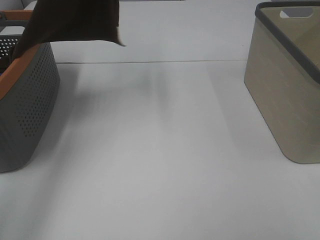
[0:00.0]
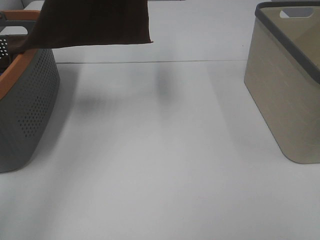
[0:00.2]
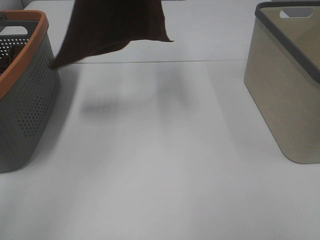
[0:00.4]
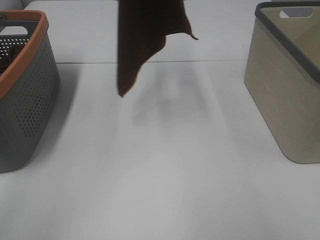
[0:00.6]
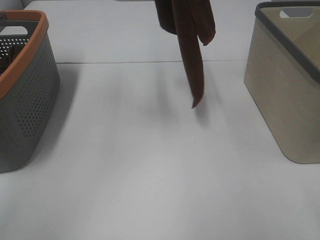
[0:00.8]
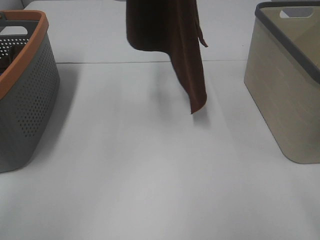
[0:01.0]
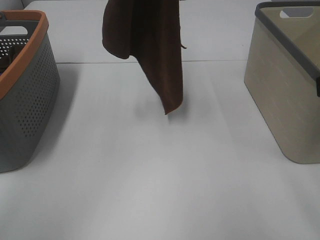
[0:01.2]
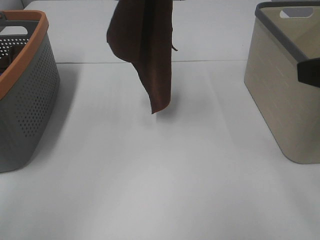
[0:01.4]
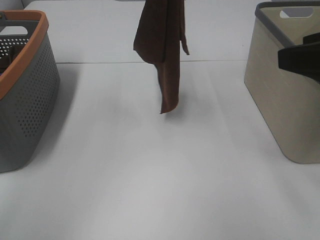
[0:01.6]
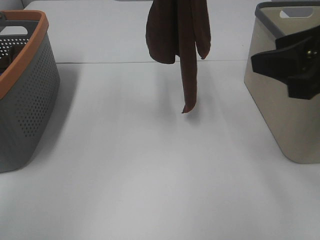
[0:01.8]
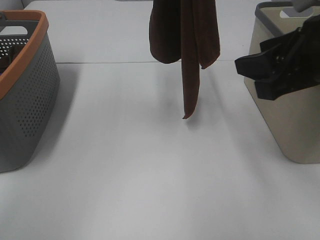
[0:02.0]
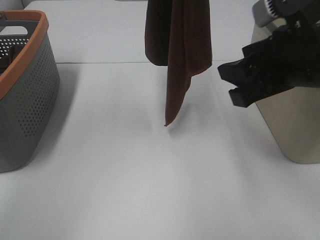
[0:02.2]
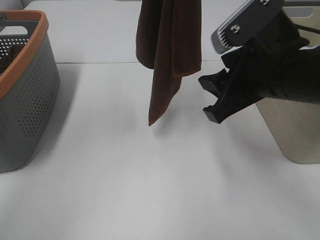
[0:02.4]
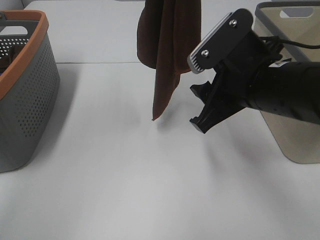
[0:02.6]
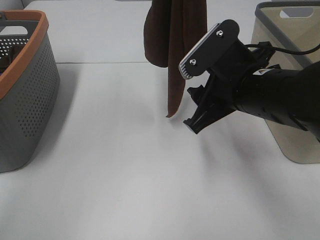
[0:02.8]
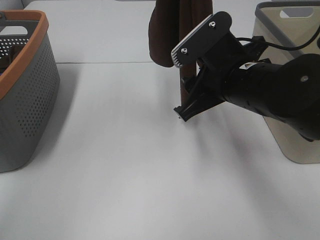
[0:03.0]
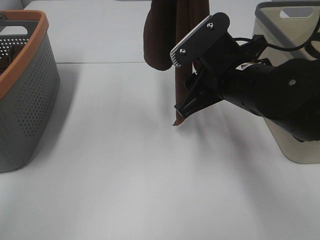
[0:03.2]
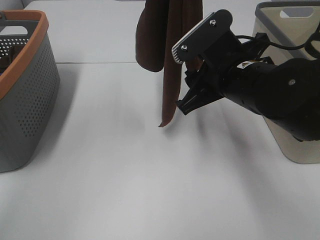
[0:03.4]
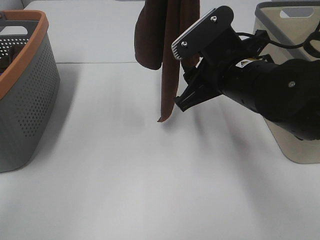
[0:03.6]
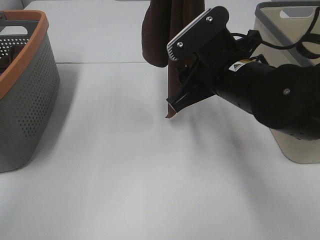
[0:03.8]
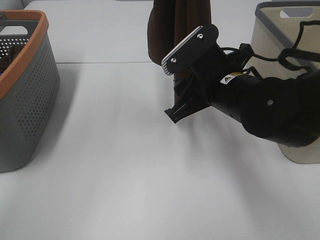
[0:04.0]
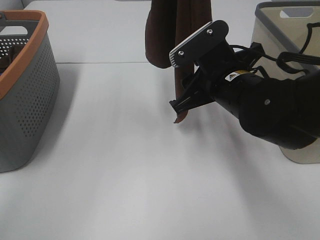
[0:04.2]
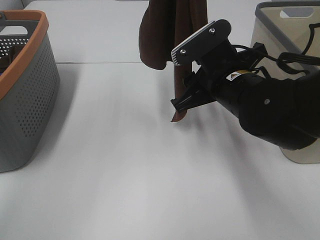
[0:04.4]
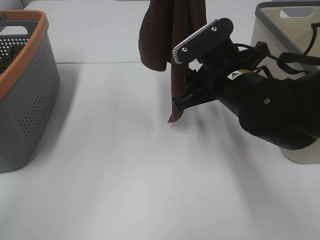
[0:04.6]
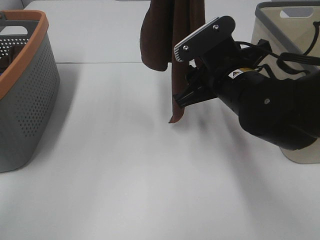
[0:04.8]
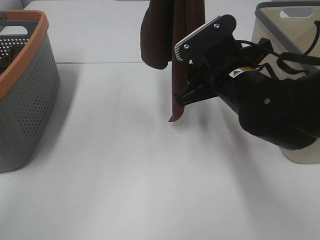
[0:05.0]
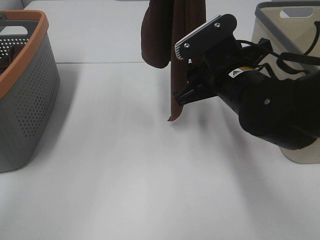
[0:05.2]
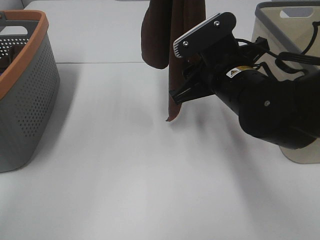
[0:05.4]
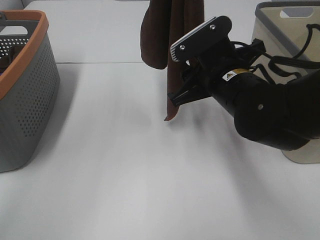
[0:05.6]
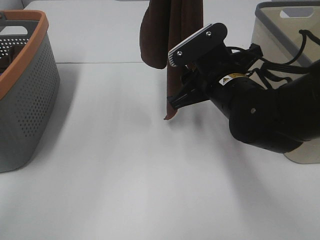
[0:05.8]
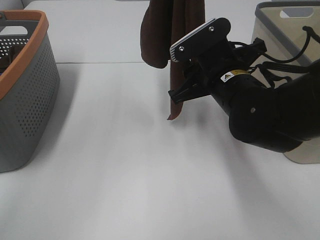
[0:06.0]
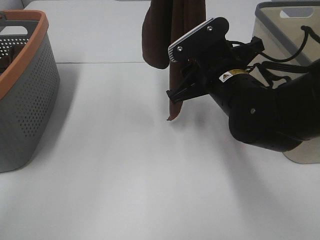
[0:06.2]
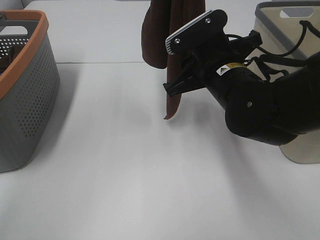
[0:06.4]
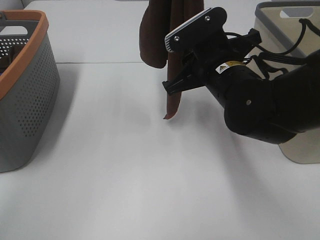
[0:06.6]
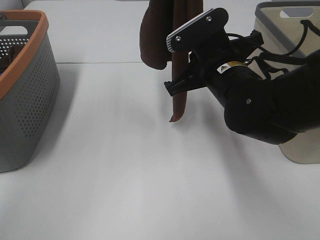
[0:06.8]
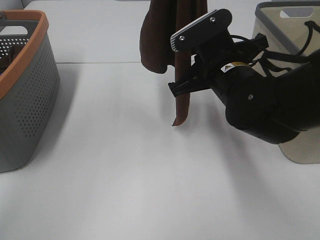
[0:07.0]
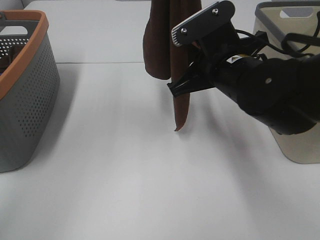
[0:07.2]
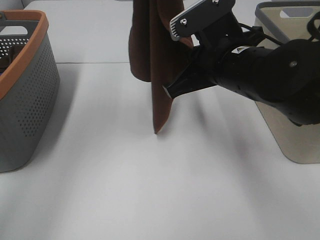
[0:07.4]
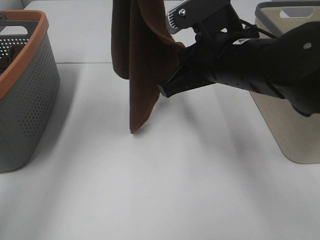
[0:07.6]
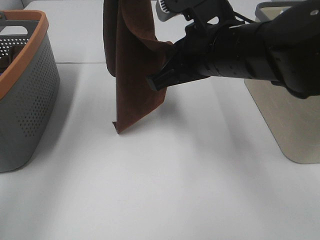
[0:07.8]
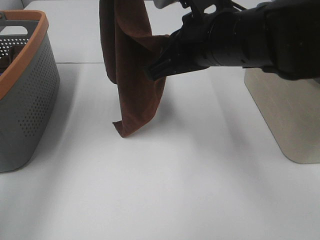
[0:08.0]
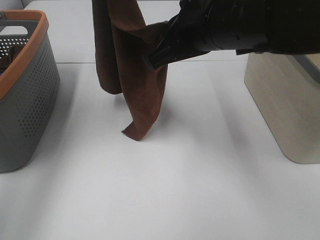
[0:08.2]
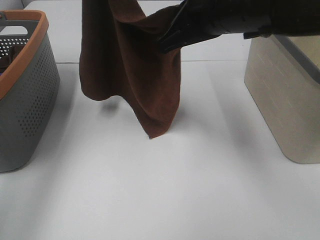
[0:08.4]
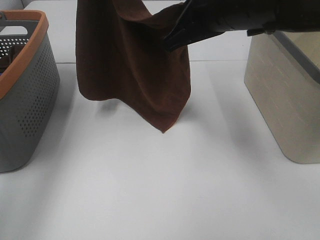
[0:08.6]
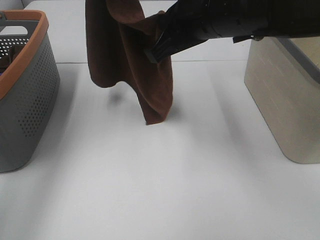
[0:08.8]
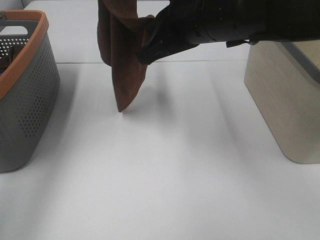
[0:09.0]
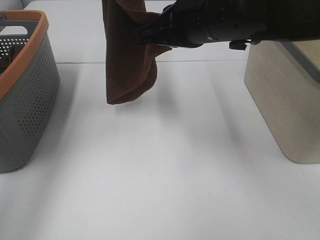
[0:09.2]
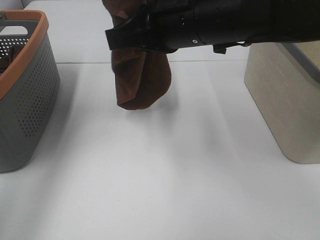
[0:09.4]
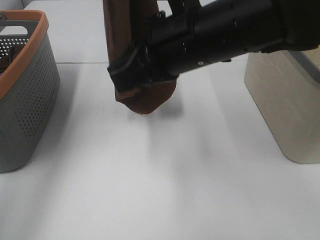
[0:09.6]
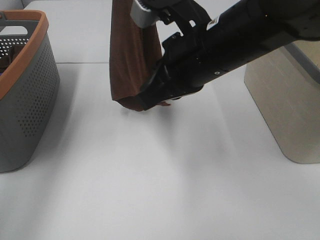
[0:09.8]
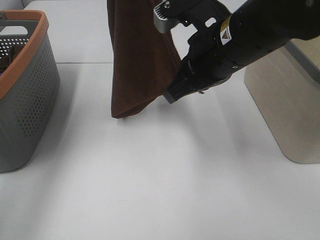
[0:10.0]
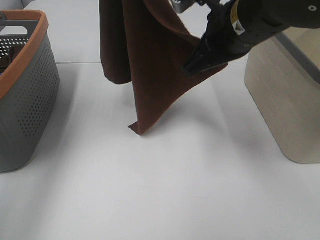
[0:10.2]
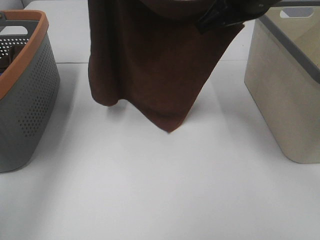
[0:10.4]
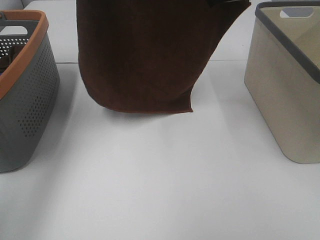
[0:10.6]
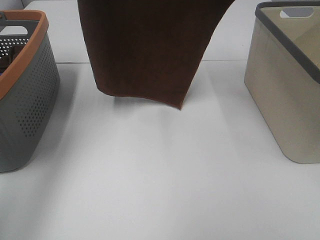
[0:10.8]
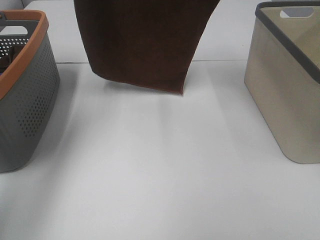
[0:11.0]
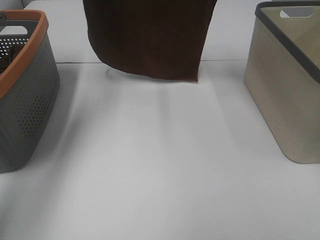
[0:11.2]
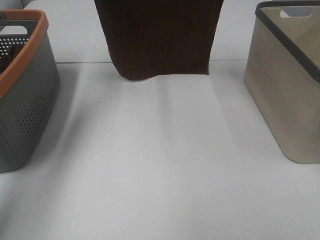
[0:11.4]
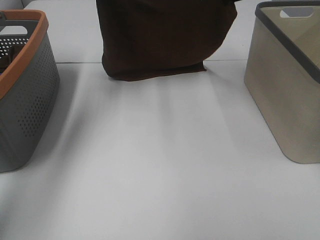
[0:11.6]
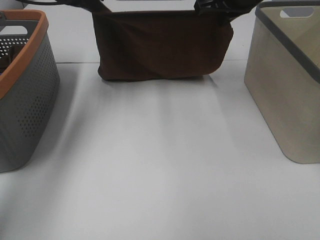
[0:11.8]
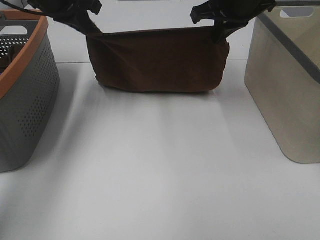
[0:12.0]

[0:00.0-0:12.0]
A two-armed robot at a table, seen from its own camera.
Task of the whole recording: Remove the towel and place it.
Step, 0:00.0 to 0:06.2: Right hand: grab a corner of the brown towel and straighten it.
Step, 0:06.4 to 0:08.4: Left hand: spread the brown towel flat on the table.
Step, 0:06.4 to 0:08.4: Right hand: spread the brown towel flat on the table.
0:00.0 to 0:01.6: The left gripper travels to the right by approximately 10 cm. The right gripper is displaced forward by some 15 cm.
0:01.6 to 0:03.0: The right gripper goes roughly 20 cm to the left, downward and forward.
0:03.0 to 0:06.0: There are only small adjustments of the grippers.
0:06.0 to 0:07.6: The right gripper goes about 5 cm upward, and closes its fingers. The left gripper shifts approximately 5 cm to the left.
0:07.6 to 0:09.0: The right gripper shifts by some 5 cm.
0:09.0 to 0:10.4: The right gripper is displaced to the right by approximately 5 cm.
0:10.4 to 0:12.0: The right gripper is displaced forward by approximately 10 cm. The left gripper goes about 10 cm downward.

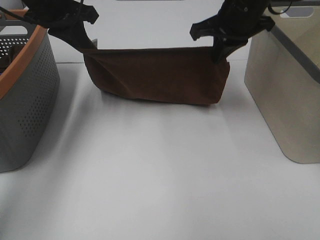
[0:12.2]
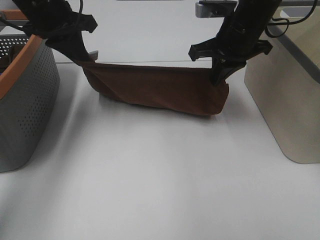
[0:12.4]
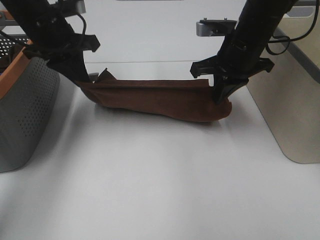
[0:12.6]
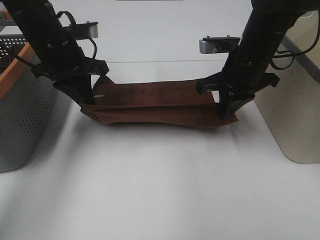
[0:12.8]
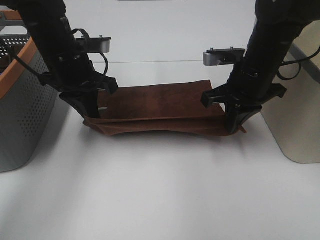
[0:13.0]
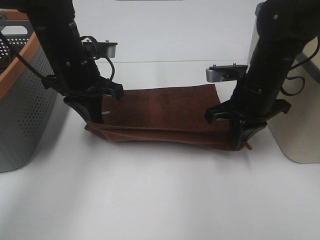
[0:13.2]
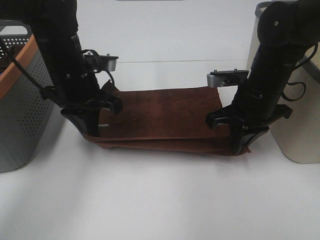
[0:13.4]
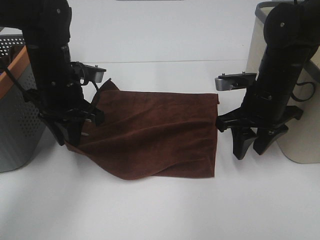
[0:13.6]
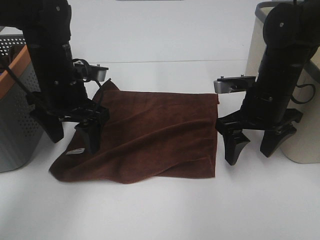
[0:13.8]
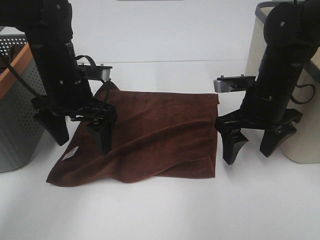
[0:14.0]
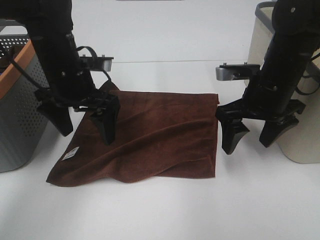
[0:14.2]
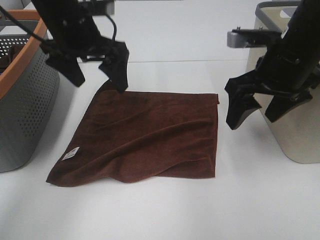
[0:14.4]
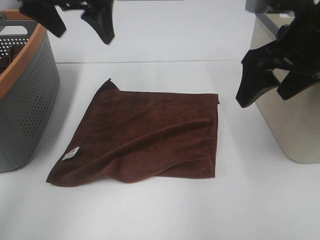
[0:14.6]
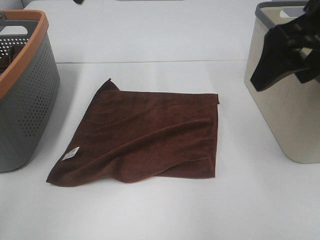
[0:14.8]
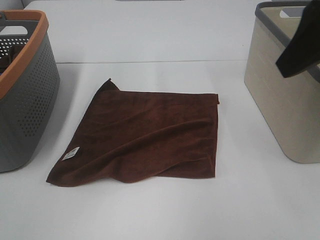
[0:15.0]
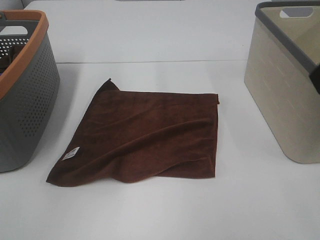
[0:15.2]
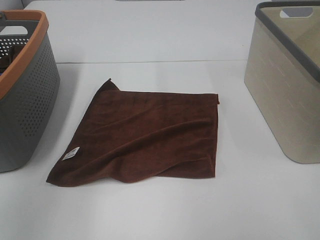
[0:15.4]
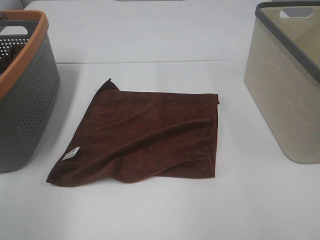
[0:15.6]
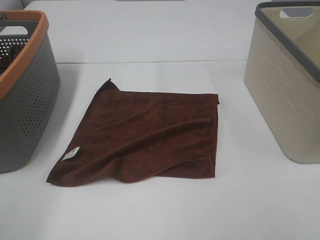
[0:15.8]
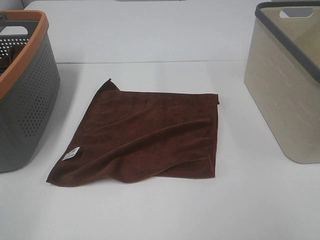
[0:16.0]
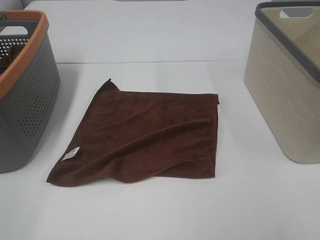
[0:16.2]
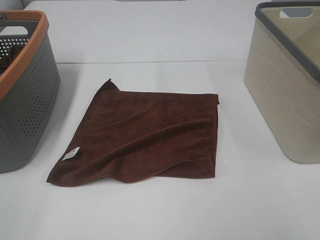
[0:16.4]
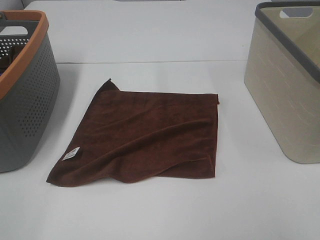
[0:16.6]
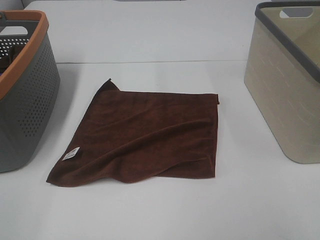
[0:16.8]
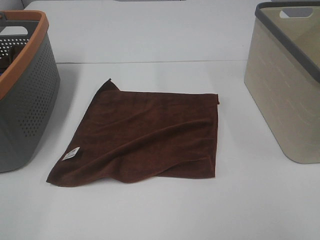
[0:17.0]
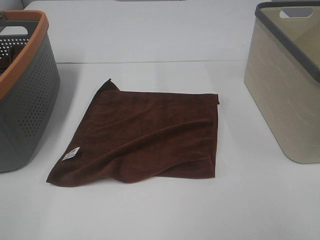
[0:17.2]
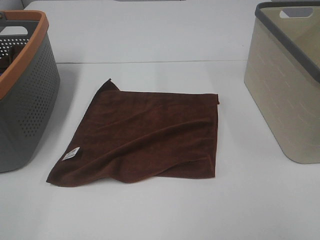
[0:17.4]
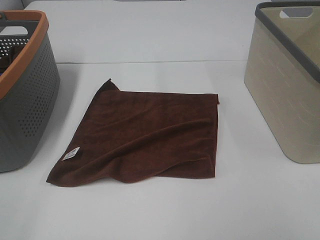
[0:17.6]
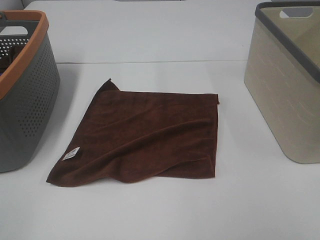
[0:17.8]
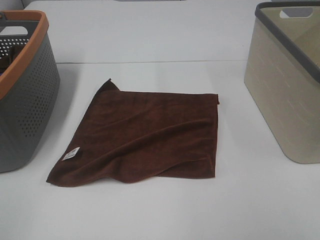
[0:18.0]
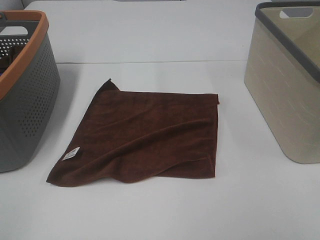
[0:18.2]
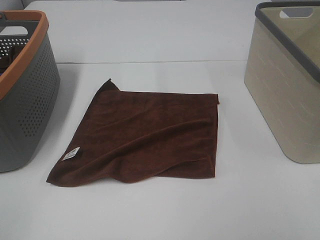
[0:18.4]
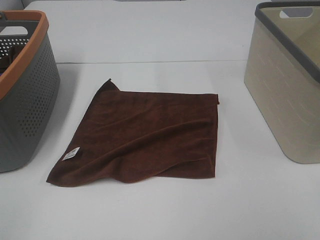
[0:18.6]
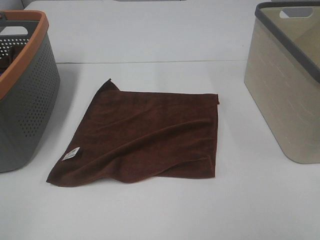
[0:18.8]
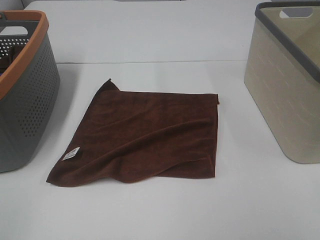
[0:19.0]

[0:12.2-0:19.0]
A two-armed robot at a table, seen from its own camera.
Task of the whole recording: Remove the towel and place it.
0:12.2 to 0:13.6: The two grippers go some 15 cm downward and backward. The right gripper opens up.
0:13.6 to 0:15.0: The right gripper moves upward and backward, some 25 cm, and opens its fingers. The left gripper goes some 30 cm upward, and opens its fingers.
0:15.0 to 0:16.2: The left gripper travels backward, downward and to the left by roughly 35 cm. The right gripper goes some 20 cm backward and downward.

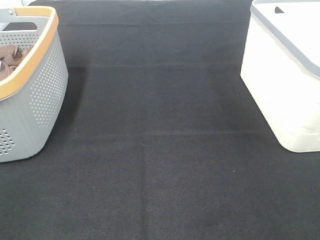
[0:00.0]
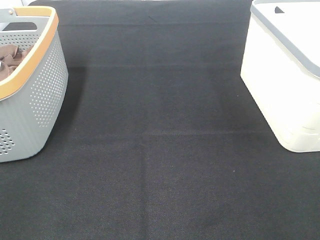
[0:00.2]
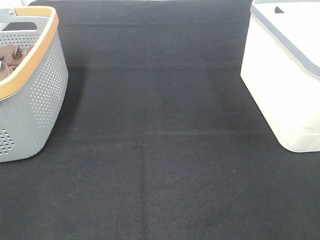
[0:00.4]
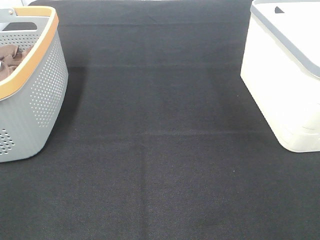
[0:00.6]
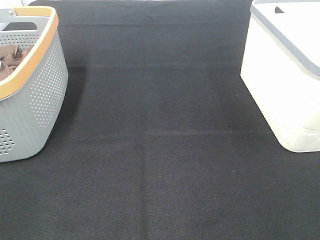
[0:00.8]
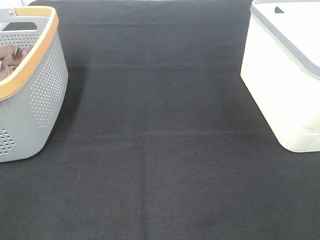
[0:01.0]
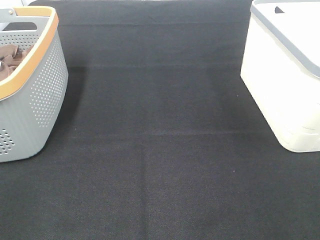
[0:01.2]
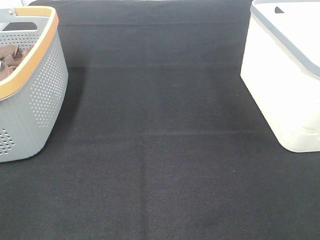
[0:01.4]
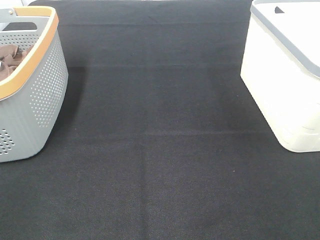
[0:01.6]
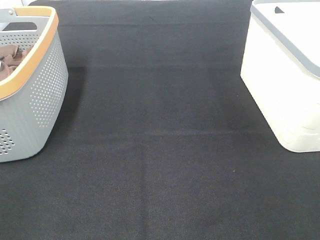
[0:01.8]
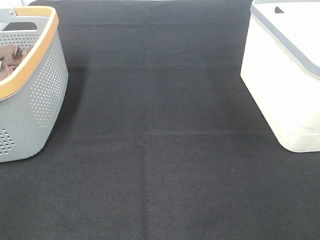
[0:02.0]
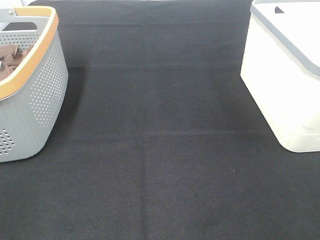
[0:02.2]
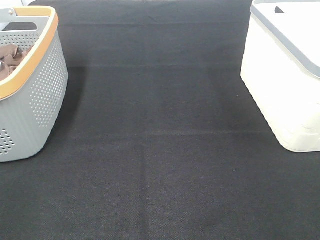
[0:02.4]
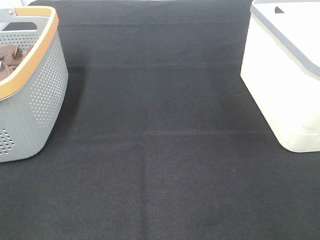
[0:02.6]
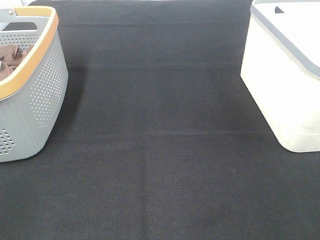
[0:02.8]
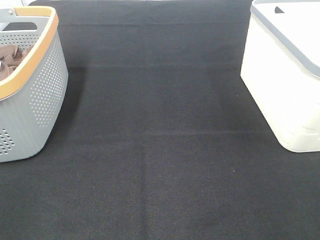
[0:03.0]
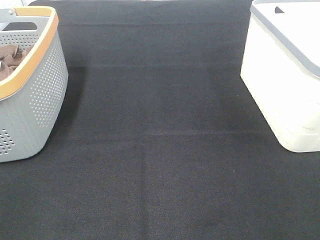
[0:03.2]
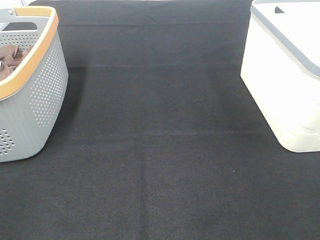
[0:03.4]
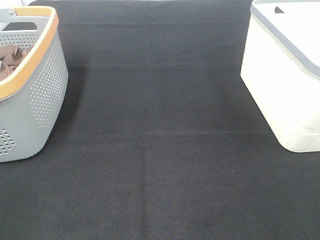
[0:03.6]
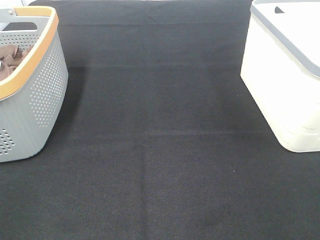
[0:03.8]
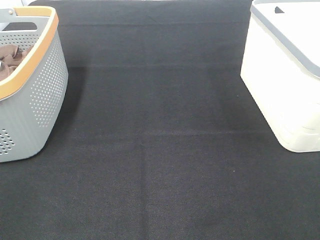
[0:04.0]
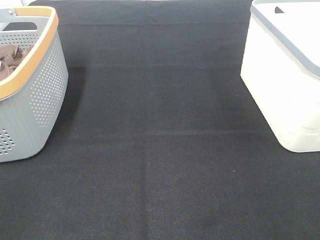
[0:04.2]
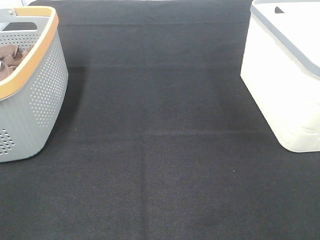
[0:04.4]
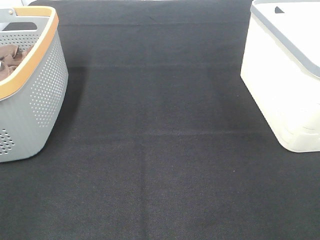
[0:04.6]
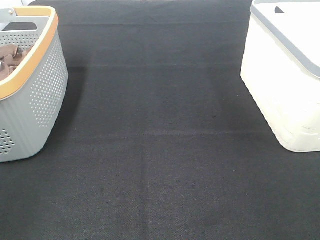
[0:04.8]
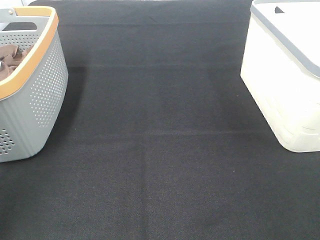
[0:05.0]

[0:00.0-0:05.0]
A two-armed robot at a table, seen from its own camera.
Task of the whole recording: Remove the towel and place it.
0:00.0 to 0:03.4: Neither gripper changes place.
0:03.4 to 0:05.0: The left gripper heads forward, covering about 15 cm.
